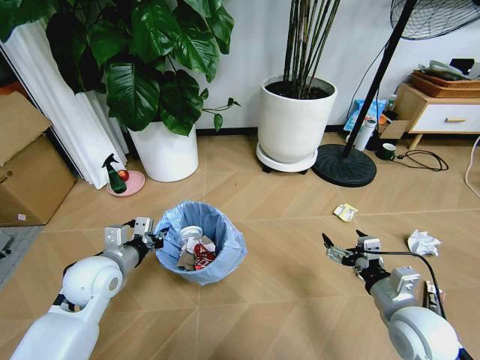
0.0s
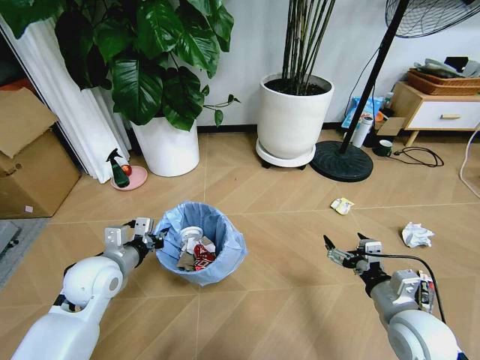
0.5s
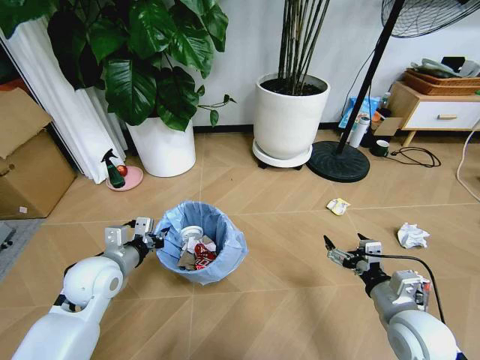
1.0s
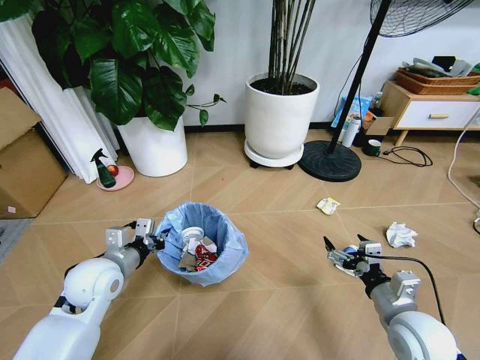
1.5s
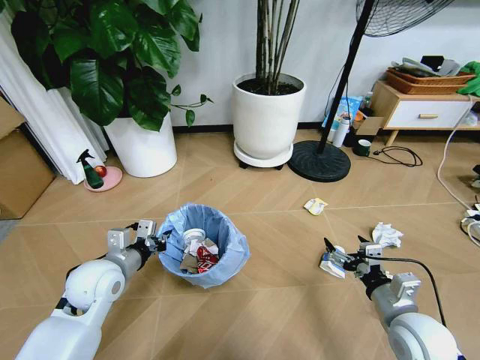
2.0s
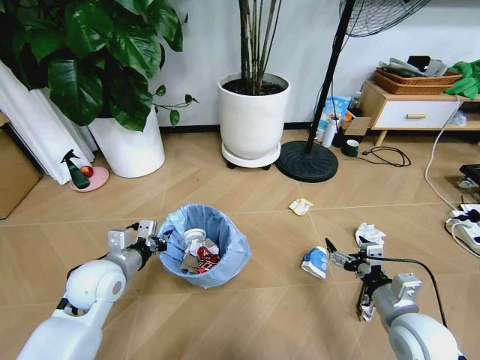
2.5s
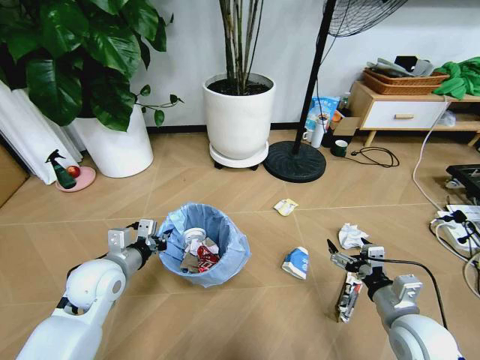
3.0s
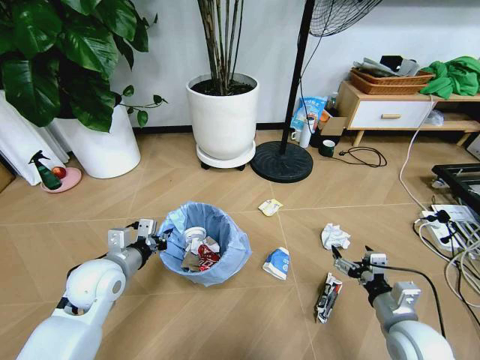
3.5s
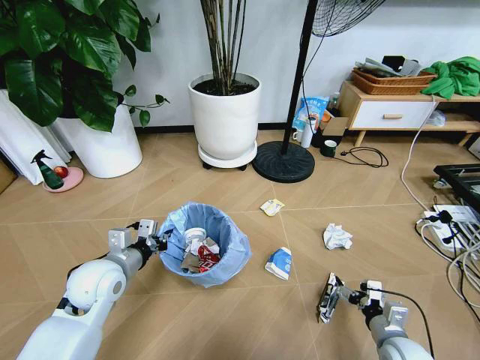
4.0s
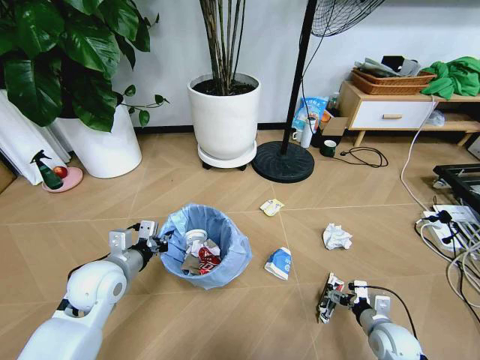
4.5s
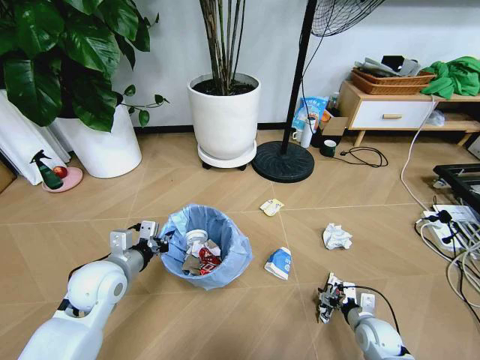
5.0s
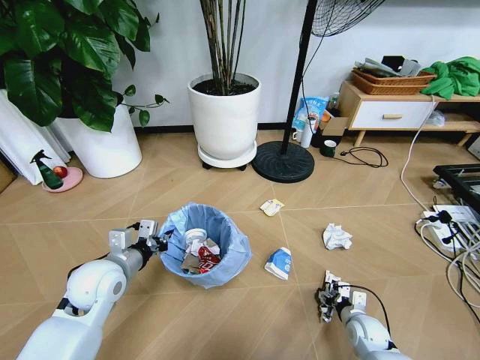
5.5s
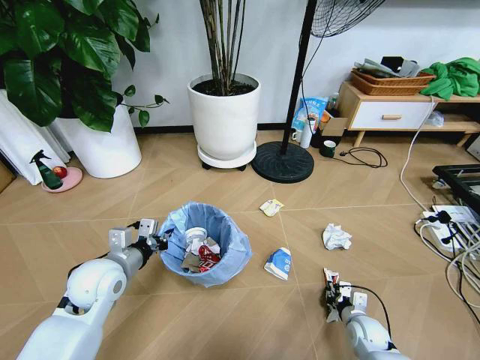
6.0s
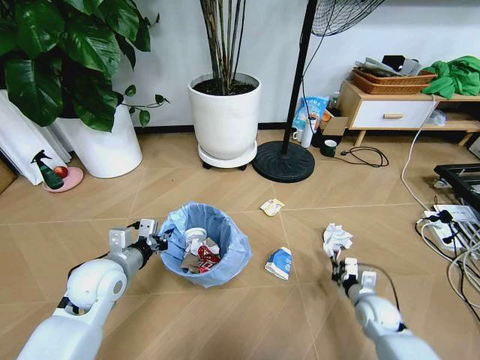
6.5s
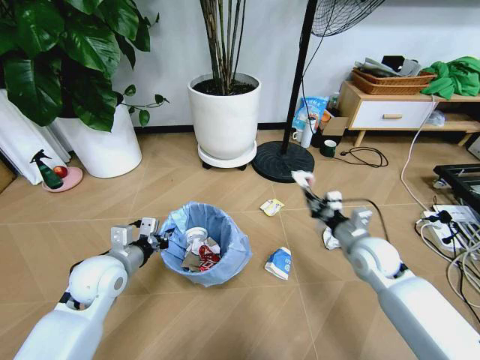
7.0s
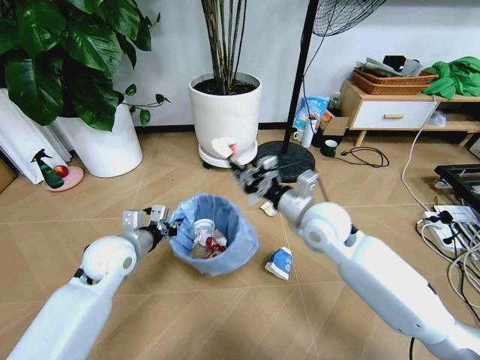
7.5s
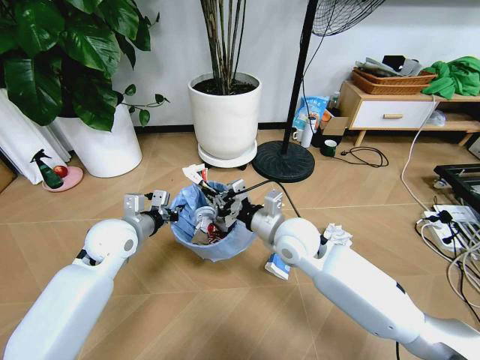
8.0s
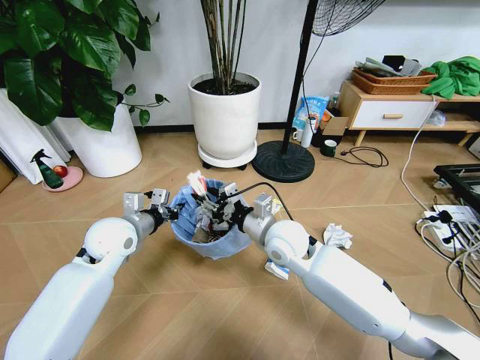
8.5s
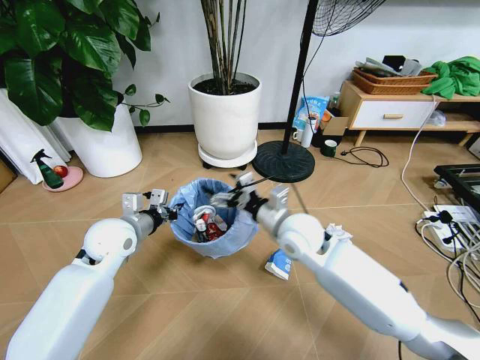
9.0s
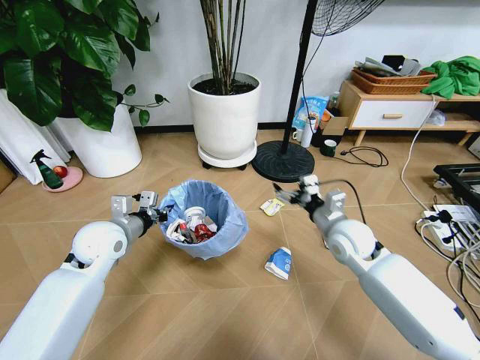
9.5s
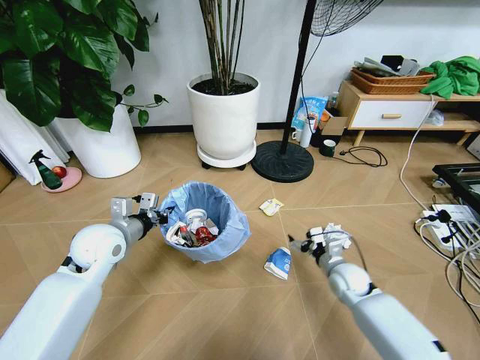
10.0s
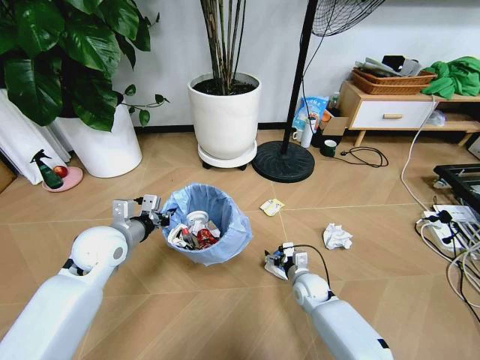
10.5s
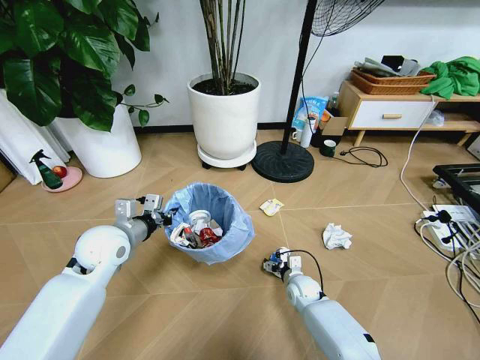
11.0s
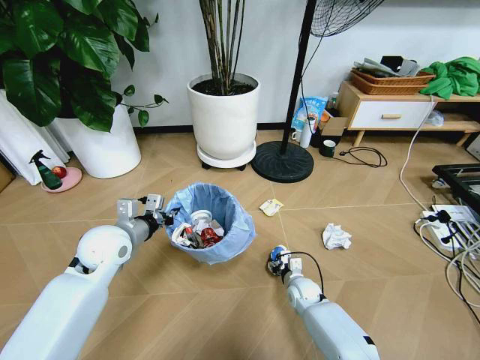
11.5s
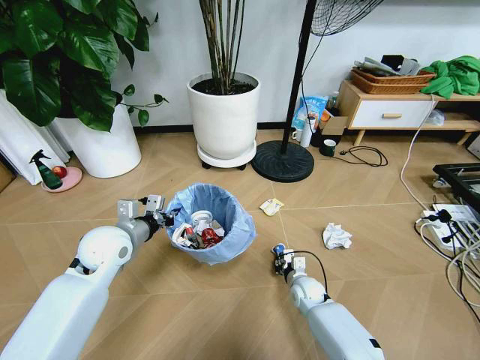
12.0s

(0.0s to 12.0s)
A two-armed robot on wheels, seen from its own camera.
Task of the whole recording: Pick up the trash bin and place the garbage on the floor into it.
2.0s - 4.0s: The right gripper is displaced downward by approximately 10 cm.
4.0s - 6.0s: The right gripper goes approximately 10 cm downward and forward, and closes.
6.0s - 8.0s: The right gripper goes some 40 cm upward, to the left and forward; the left gripper goes roughly 10 cm forward.
8.0s - 10.0s: The right gripper goes some 25 cm downward and to the right, and opens its fingers.
10.0s - 12.0s: The right gripper moves downward and to the left, approximately 15 cm, and closes up.

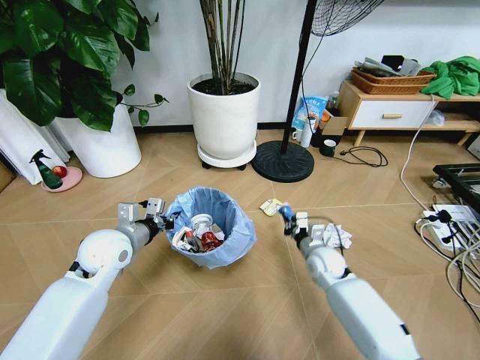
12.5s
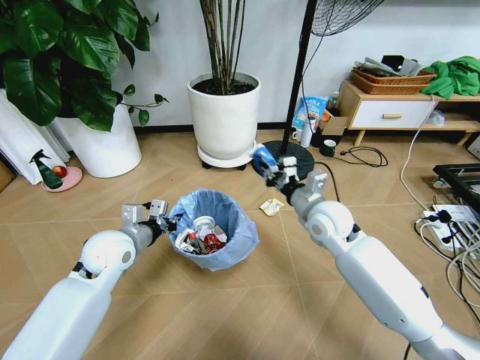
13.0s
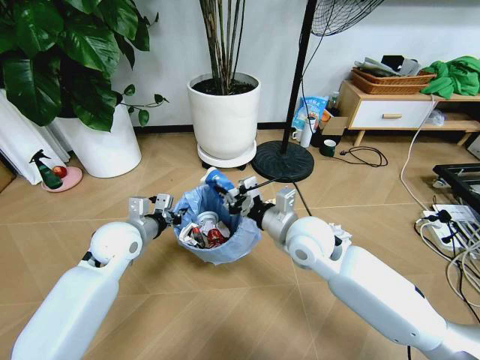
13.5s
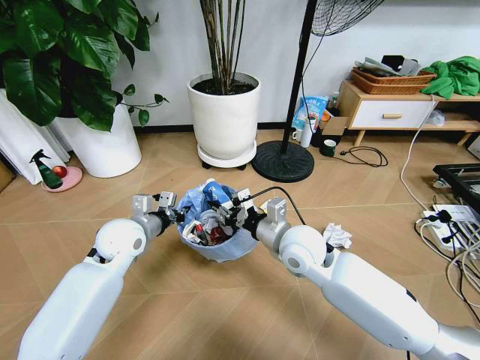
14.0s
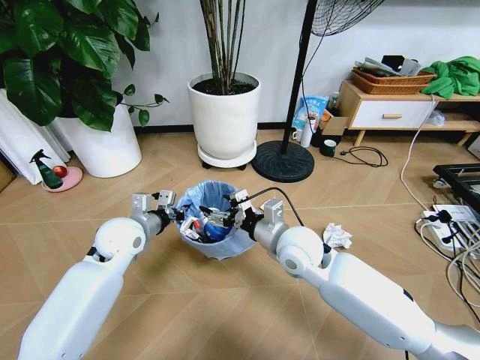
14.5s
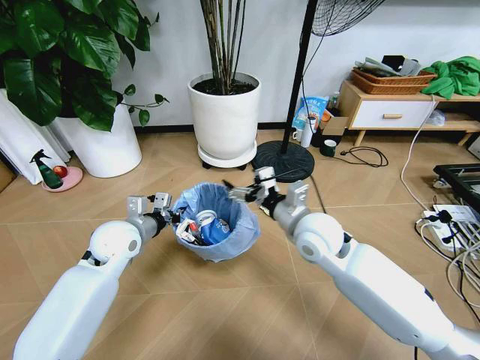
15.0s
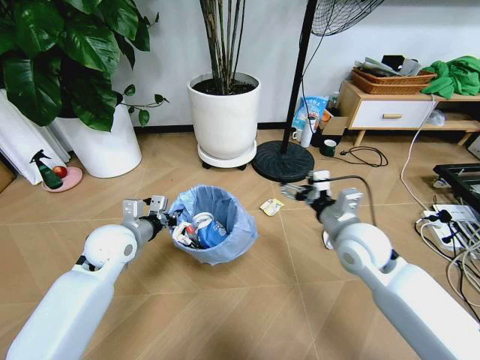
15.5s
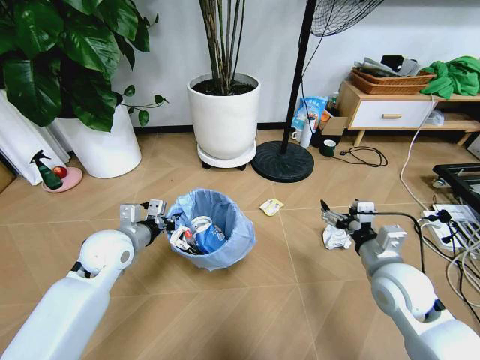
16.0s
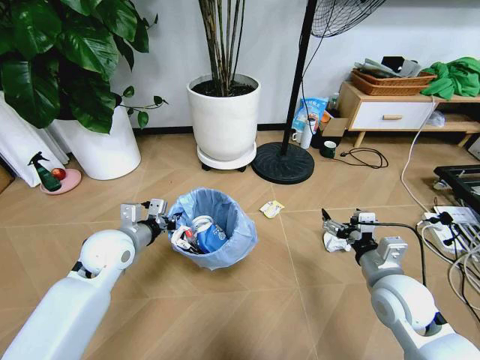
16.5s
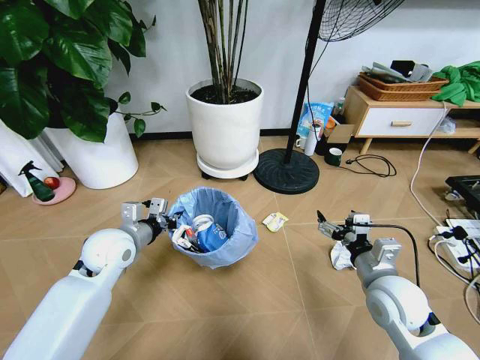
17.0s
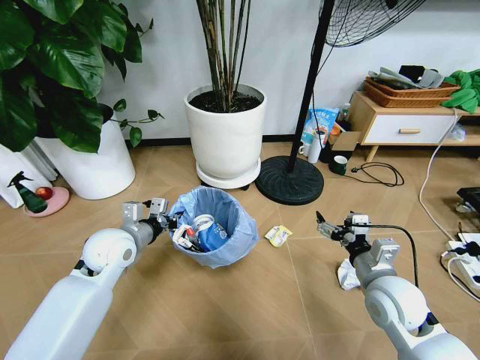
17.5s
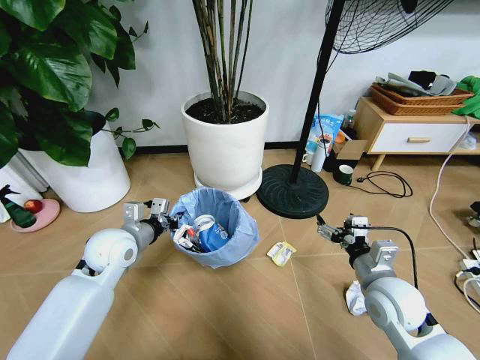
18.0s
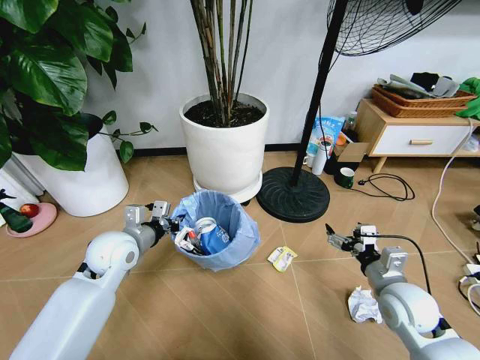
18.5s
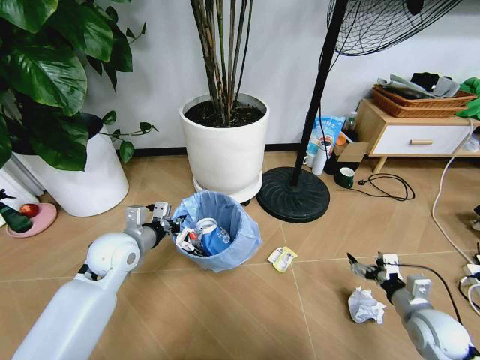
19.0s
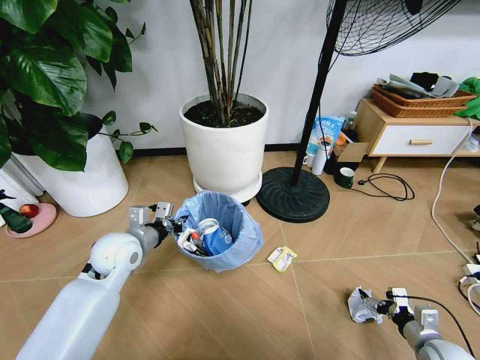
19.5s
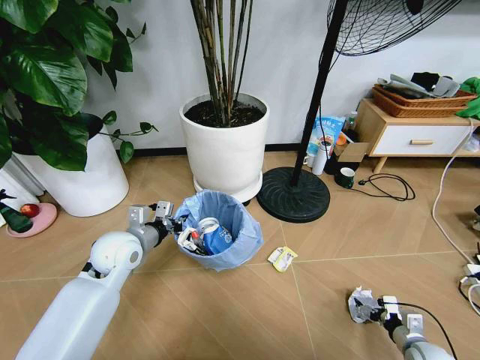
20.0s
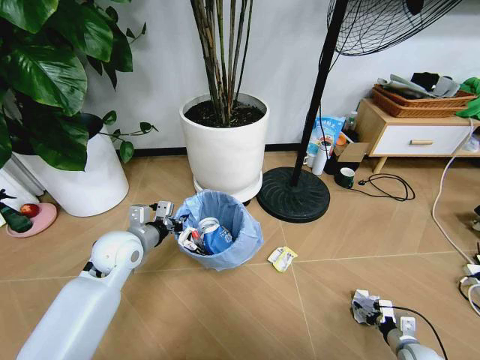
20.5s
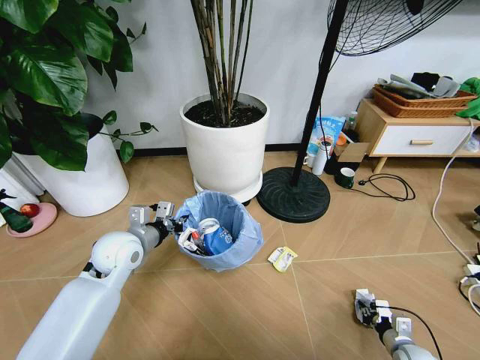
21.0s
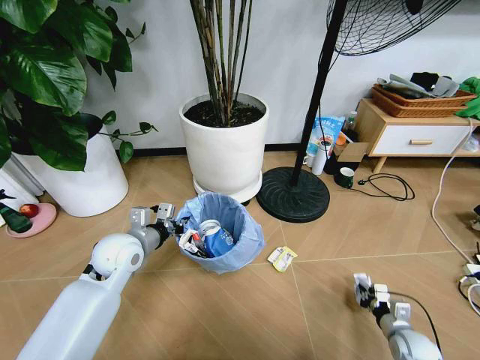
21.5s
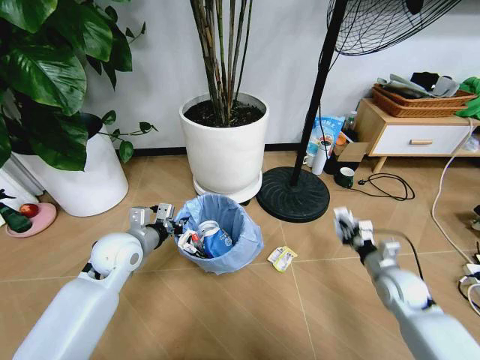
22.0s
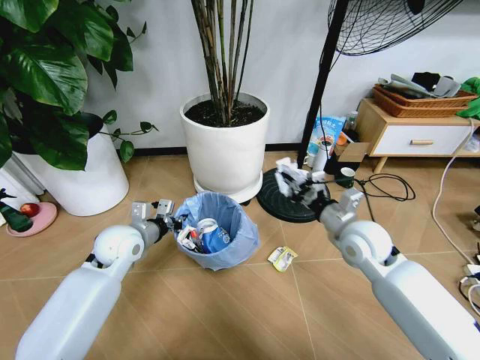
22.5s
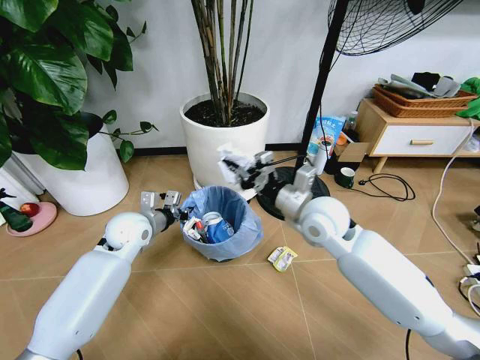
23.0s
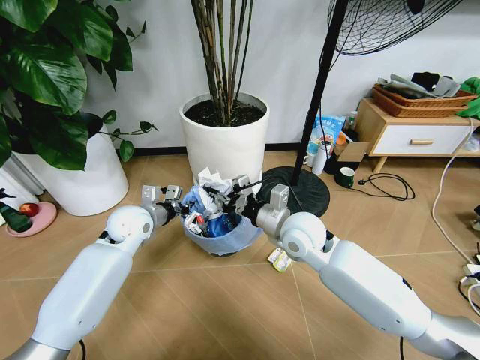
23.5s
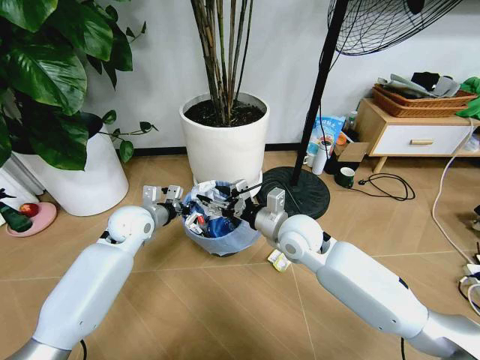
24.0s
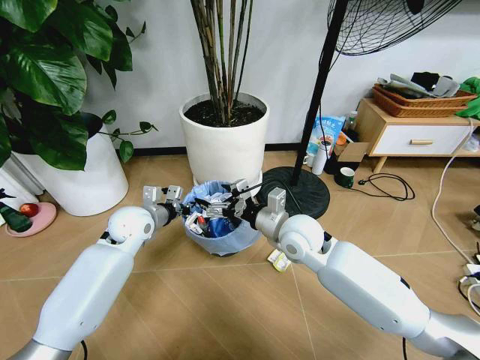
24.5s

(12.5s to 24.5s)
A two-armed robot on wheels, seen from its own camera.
Task of the whole recording: Pick up the trash bin and place the garbage on the floor into it.
12.5s - 14.5s: The right gripper is displaced upward and to the left by approximately 20 cm, and opens.
14.5s - 16.5s: The right gripper is displaced to the right and backward by about 20 cm.
16.5s - 18.5s: The right gripper changes place by about 5 cm.
18.5s - 20.5s: The right gripper goes roughly 25 cm downward and to the right.
20.5s - 22.5s: The right gripper moves upward, to the left and forward, approximately 40 cm, and closes up.
22.5s - 24.5s: The left gripper shifts approximately 5 cm forward, while the right gripper heads to the left, covering some 15 cm, and opens its fingers.

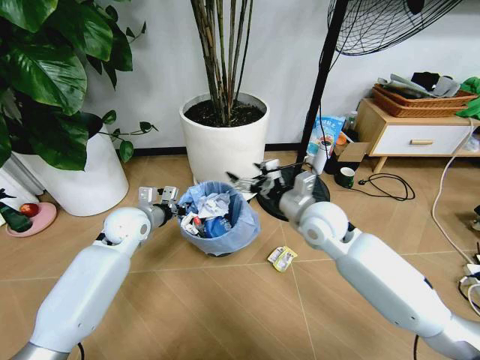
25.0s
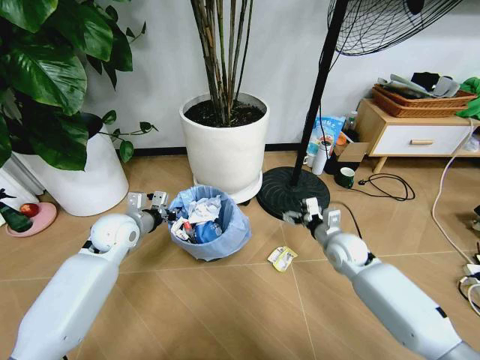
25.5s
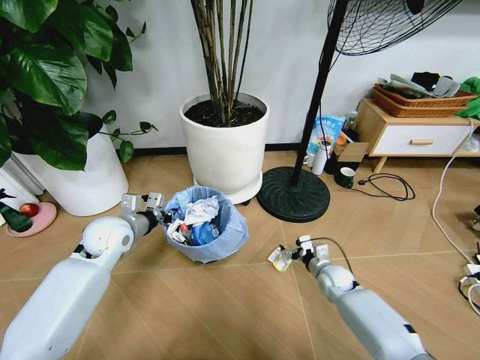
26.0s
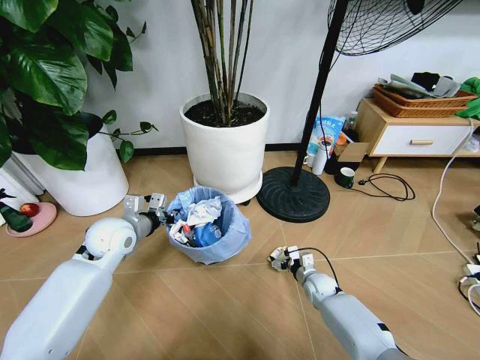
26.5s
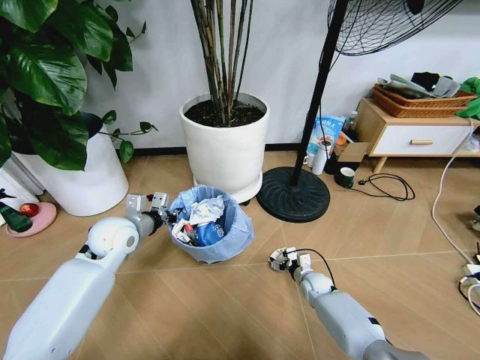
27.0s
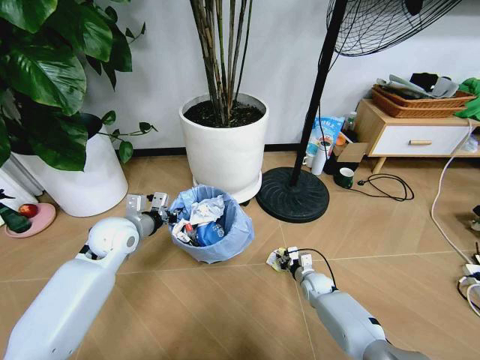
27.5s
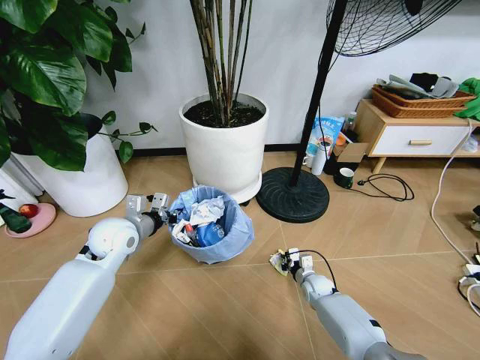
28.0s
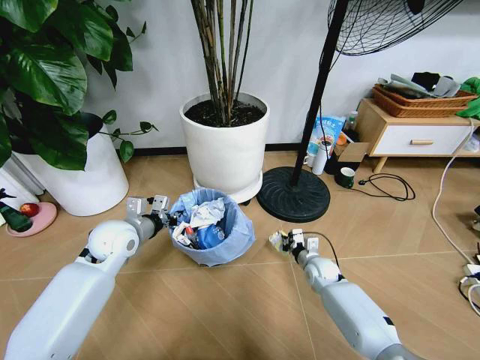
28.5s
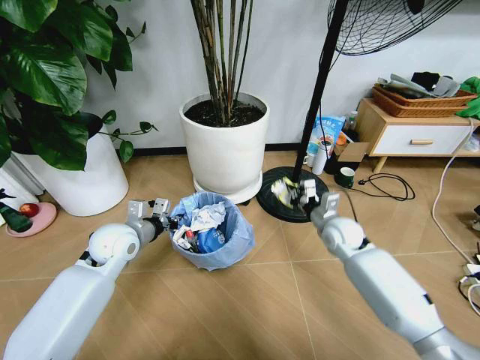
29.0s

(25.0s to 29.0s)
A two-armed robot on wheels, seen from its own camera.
Task of the whole recording: Pick up the trash bin and place the garbage on the floor into it.
25.0s - 27.0s: The right gripper moves downward, about 35 cm.
27.0s - 29.0s: The right gripper is displaced upward by approximately 25 cm, and closes its fingers.
